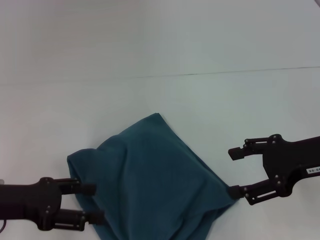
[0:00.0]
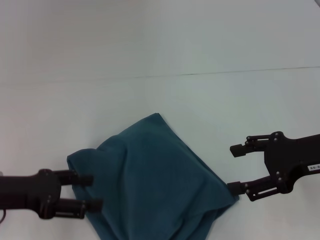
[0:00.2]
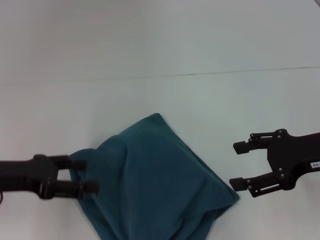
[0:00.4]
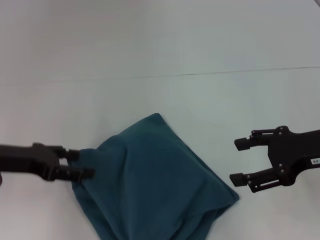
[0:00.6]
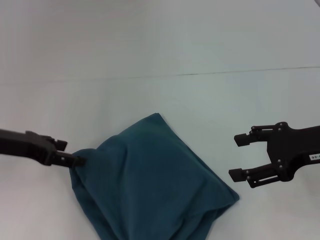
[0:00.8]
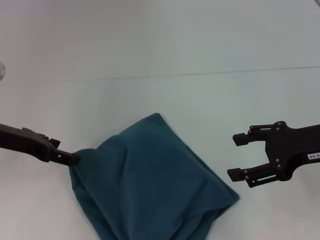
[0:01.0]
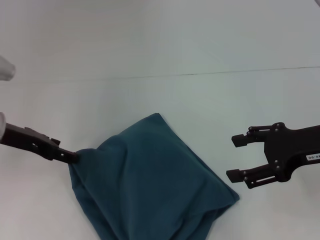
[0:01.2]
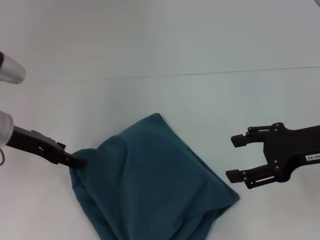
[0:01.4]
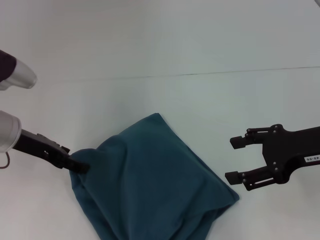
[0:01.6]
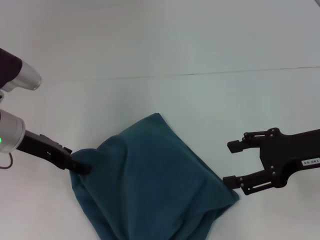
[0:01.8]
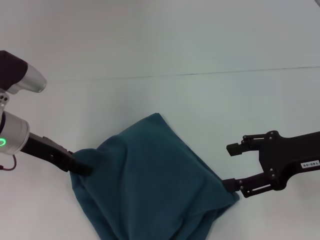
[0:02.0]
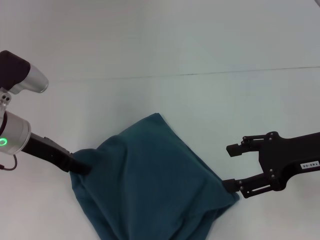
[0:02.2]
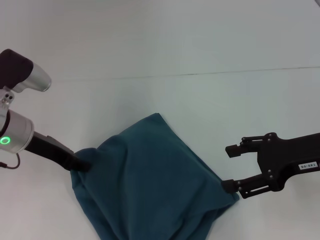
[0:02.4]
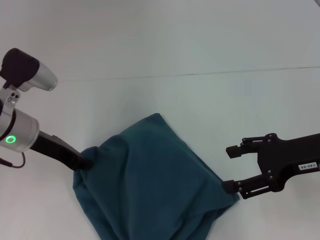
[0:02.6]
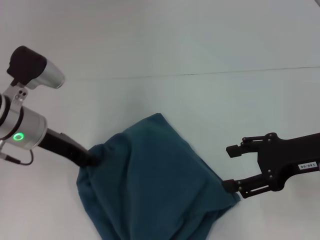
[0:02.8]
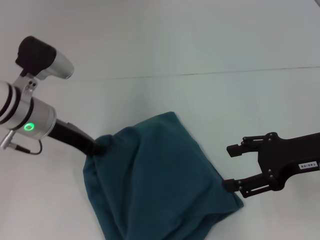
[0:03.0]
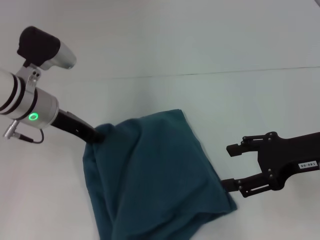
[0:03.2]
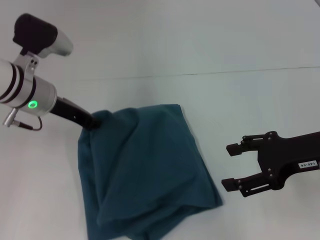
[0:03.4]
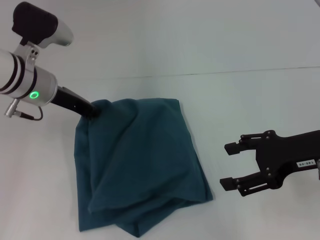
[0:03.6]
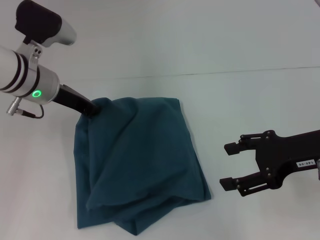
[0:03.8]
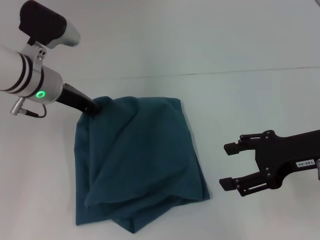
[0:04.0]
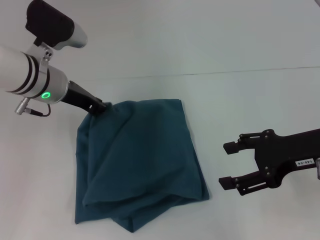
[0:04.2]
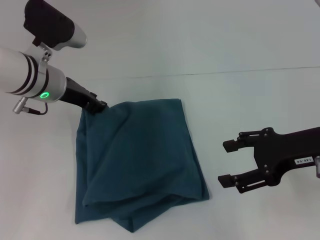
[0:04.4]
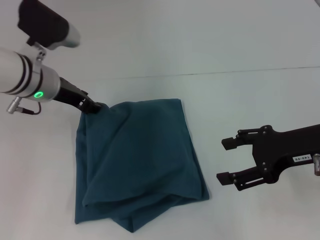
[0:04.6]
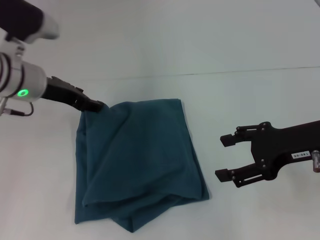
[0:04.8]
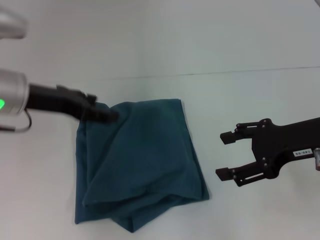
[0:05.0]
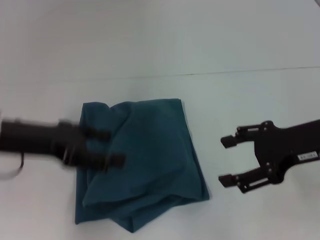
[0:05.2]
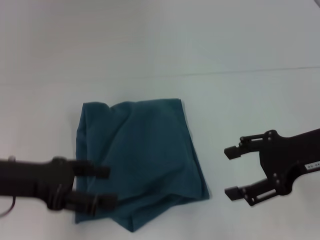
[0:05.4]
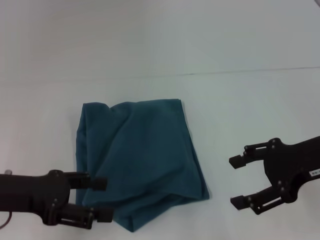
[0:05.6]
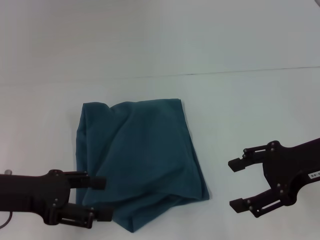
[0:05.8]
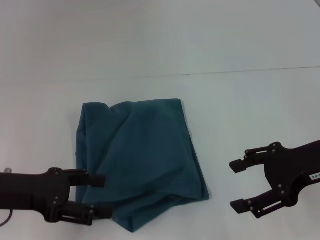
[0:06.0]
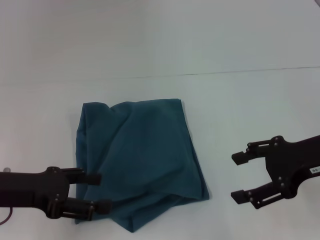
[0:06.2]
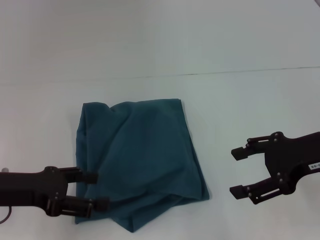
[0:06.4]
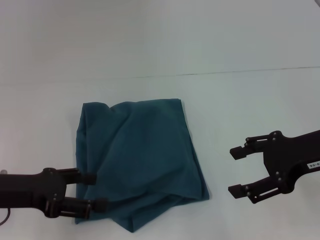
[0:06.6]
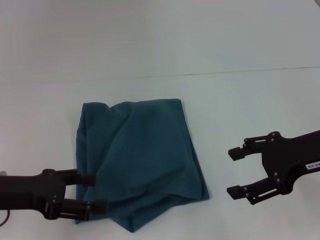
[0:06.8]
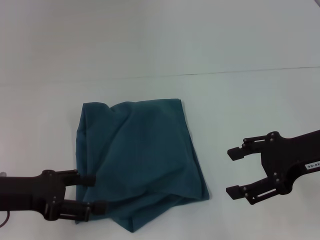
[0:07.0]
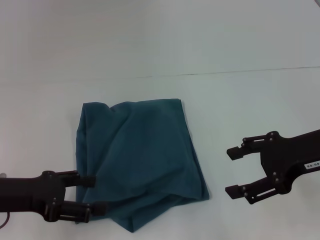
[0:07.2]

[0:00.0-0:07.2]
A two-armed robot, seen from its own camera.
0:00.0 to 0:01.4: The left gripper travels forward by roughly 10 cm.
0:01.4 to 0:02.8: The left gripper closes its fingers.
0:02.8 to 0:04.4: The left gripper shifts by about 5 cm.
0:04.4 to 0:05.8: The left gripper shifts roughly 20 cm backward and to the left, and opens.
0:05.8 to 0:07.2: The grippers move only a little.
